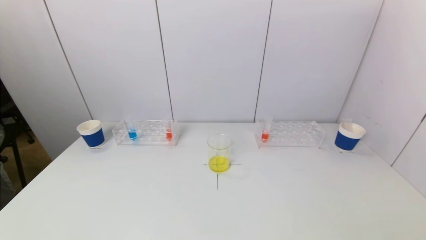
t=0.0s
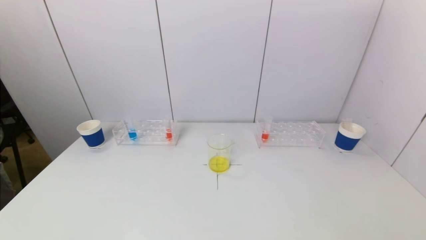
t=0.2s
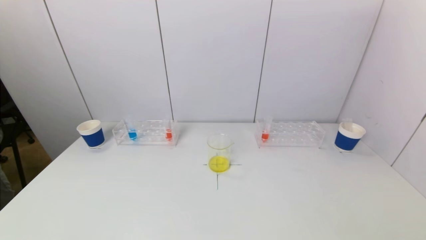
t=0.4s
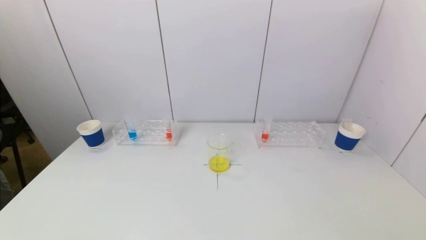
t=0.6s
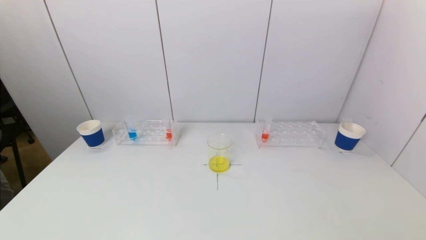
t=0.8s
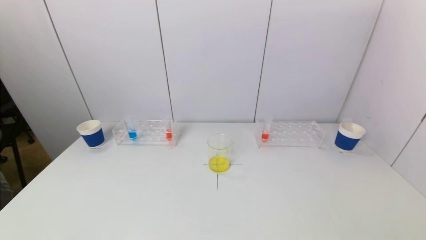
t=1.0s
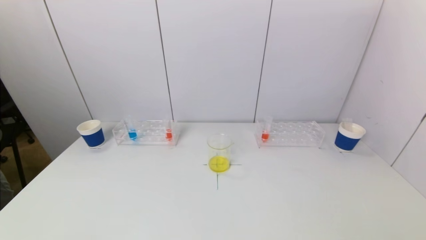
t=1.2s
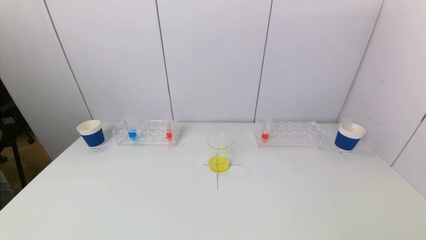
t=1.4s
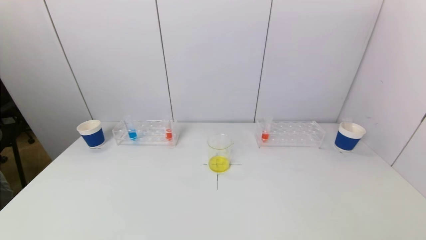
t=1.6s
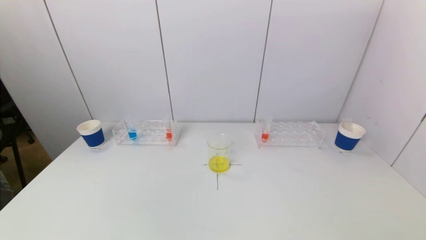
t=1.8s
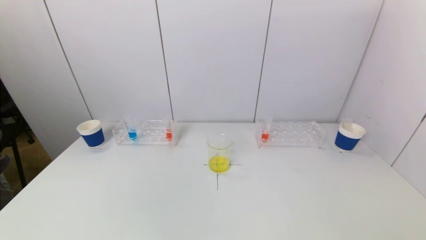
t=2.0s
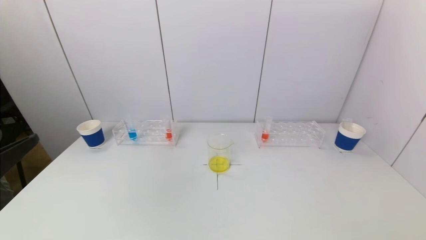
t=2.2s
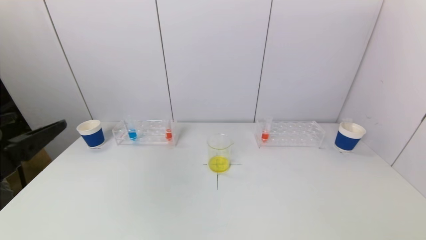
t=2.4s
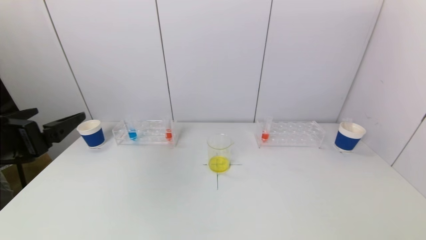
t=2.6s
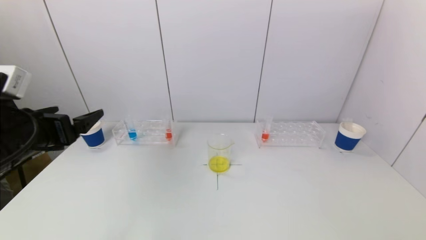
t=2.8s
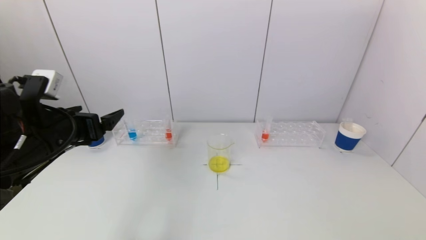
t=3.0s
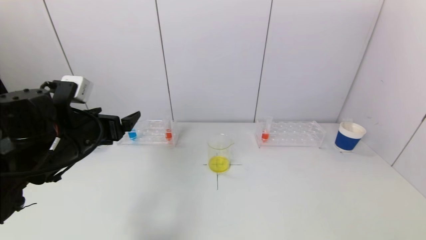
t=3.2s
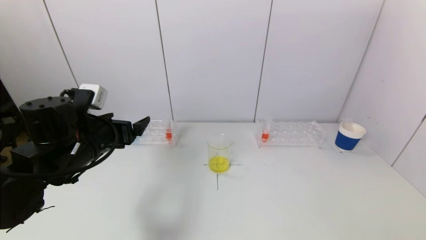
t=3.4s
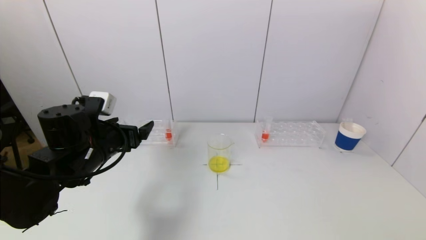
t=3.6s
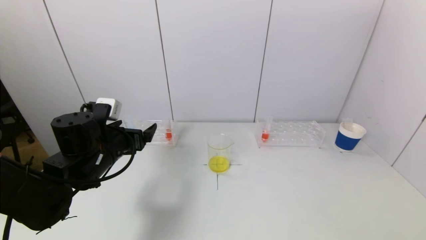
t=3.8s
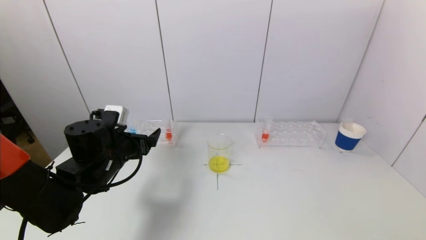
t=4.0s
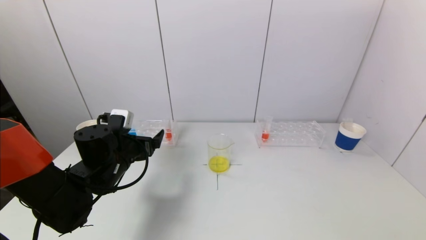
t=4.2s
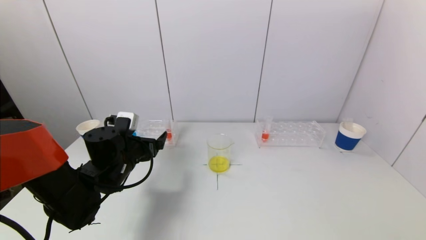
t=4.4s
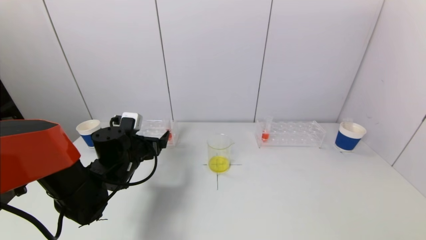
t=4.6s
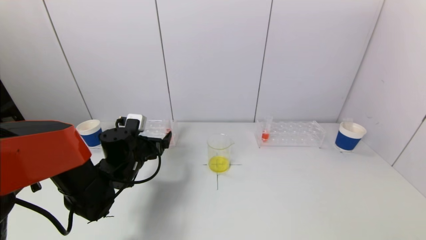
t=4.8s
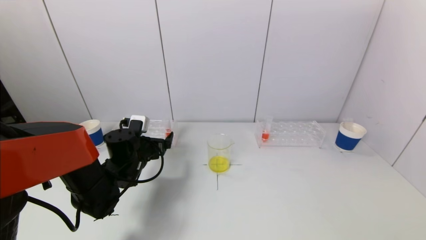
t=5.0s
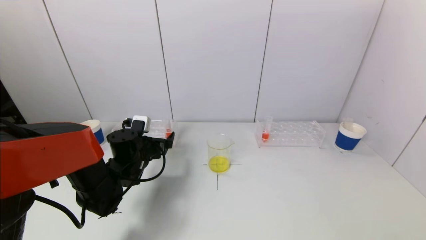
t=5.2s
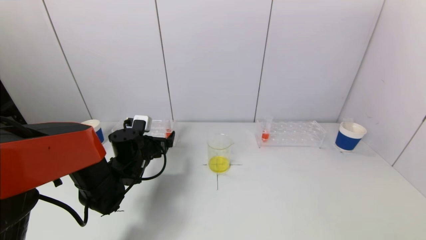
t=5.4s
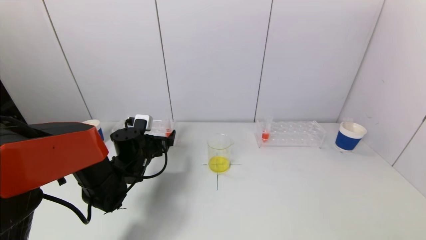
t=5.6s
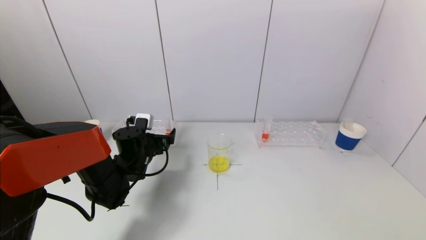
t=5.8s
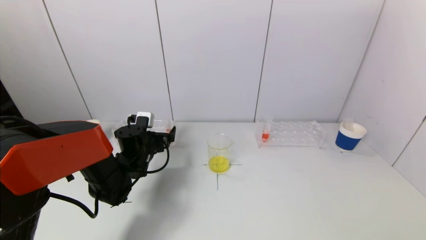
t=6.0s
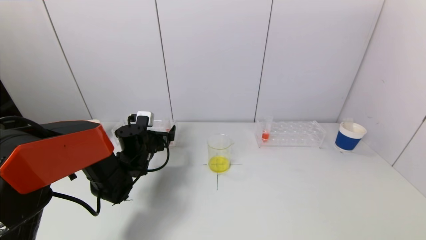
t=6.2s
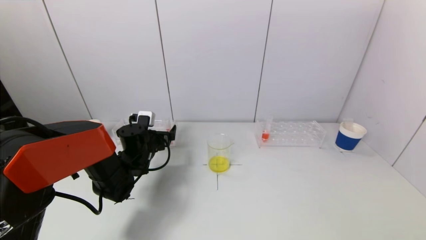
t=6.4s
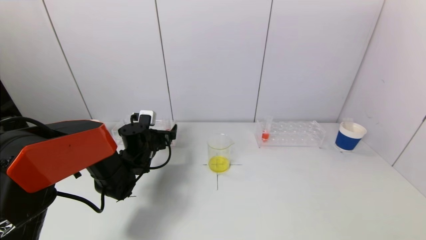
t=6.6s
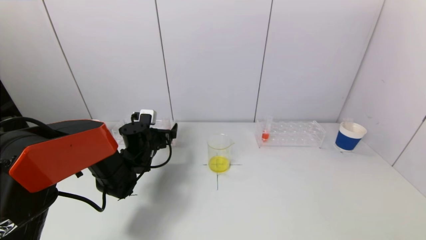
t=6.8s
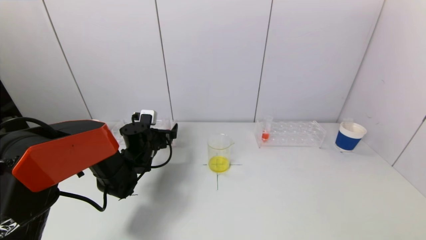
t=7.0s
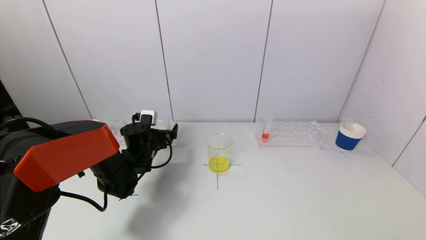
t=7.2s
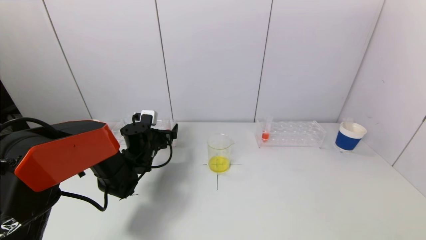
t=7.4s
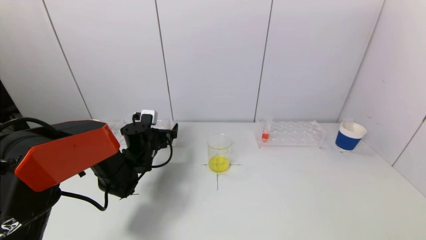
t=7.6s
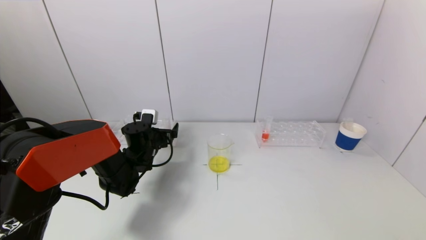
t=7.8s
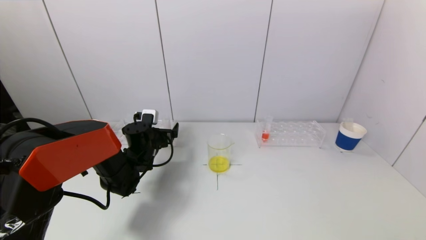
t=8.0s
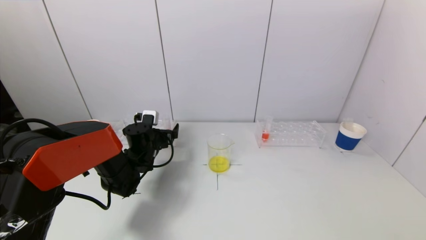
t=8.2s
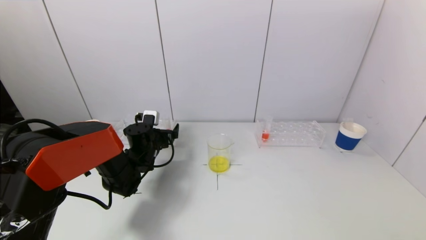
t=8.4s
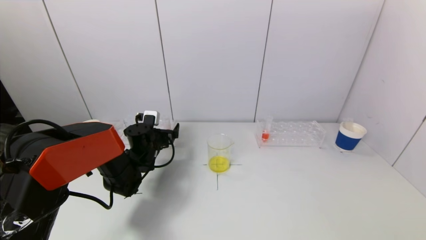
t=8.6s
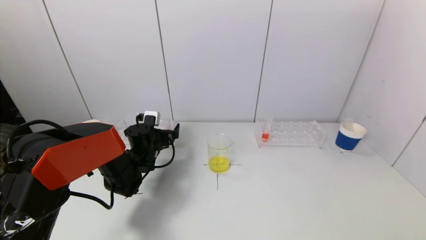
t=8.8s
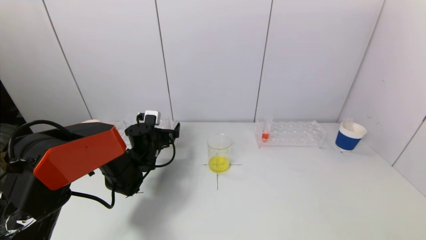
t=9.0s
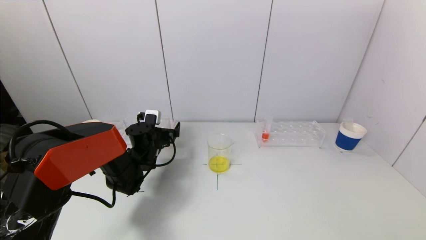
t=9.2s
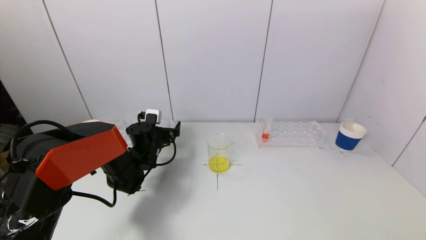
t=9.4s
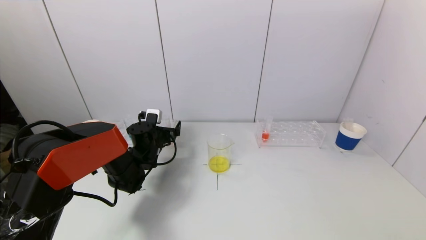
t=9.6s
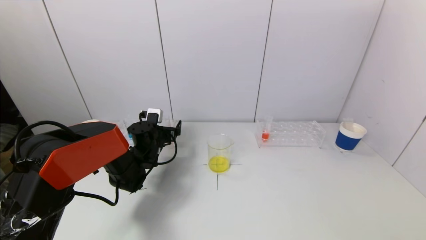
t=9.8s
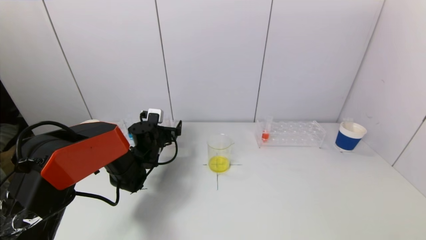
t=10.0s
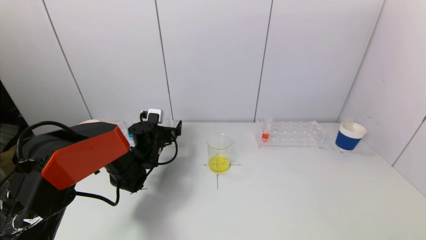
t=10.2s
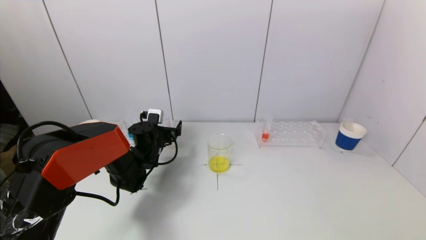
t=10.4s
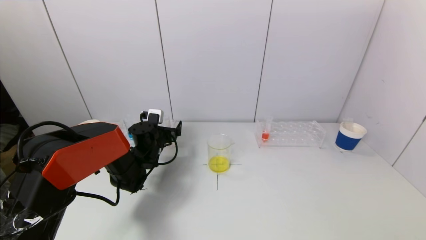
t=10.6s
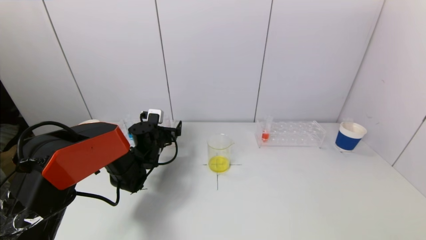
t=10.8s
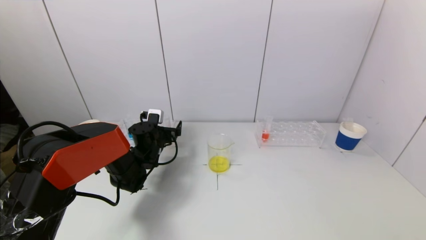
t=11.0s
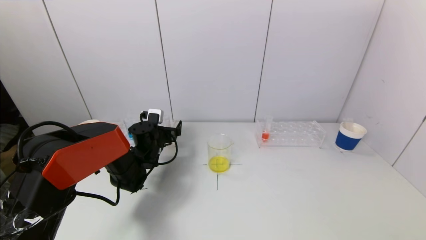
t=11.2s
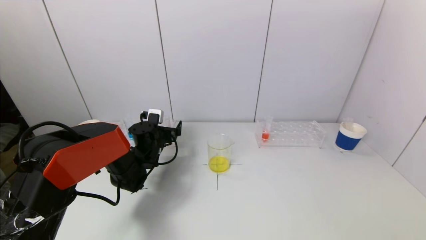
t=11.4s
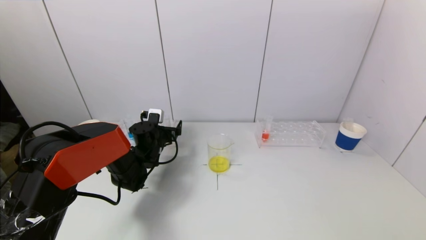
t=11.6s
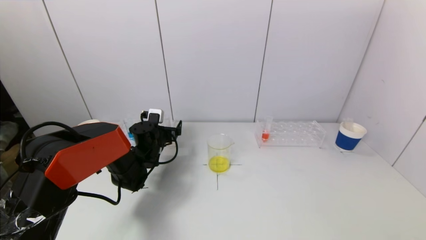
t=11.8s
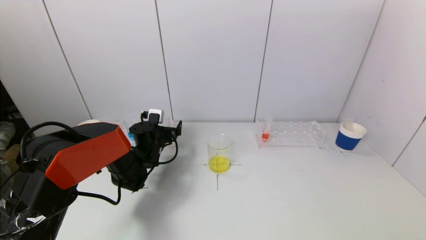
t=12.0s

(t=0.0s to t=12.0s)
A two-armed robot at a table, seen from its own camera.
Task of the whole recording: pick up a test tube with pigment on left test tube rack and a test tube with pigment on right test tube rack by grippers and pour them into the beaker.
t=1.6s - t=3.0s: The left gripper shifts roughly 25 cm forward.
t=3.0s - t=4.4s: The left gripper is displaced downward, forward and to the right by about 15 cm.
t=4.4s - t=6.0s: The left gripper heads forward, covering some 5 cm.
t=6.0s - t=9.0s: The grippers move only a little.
t=9.0s - t=10.4s: Neither gripper changes place.
t=10.4s - t=12.0s: The two grippers keep their place.

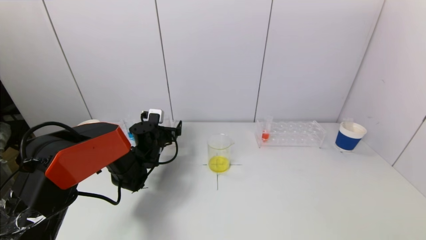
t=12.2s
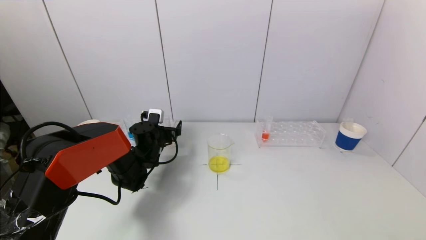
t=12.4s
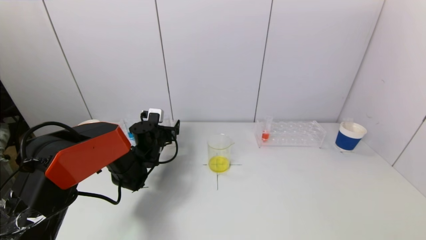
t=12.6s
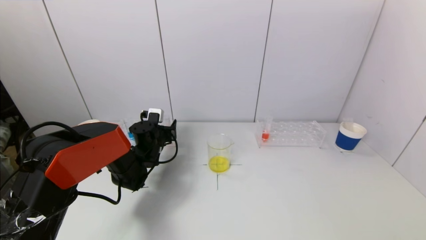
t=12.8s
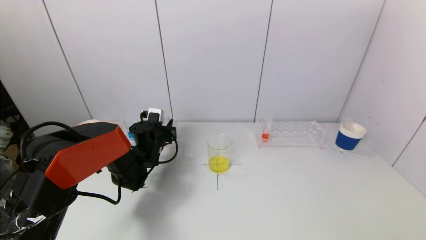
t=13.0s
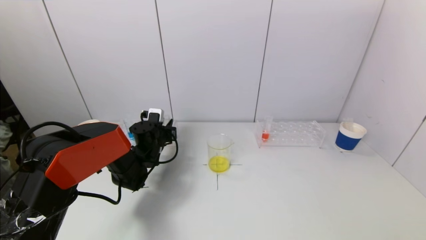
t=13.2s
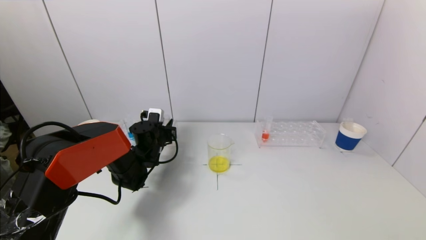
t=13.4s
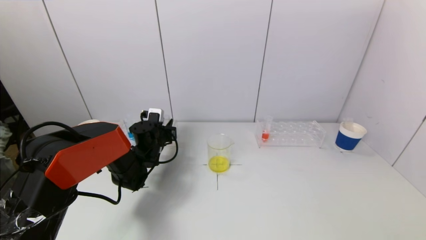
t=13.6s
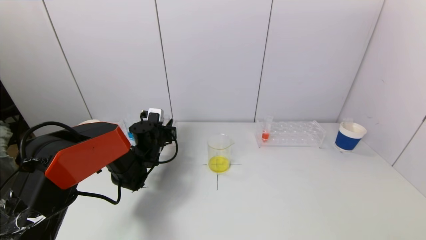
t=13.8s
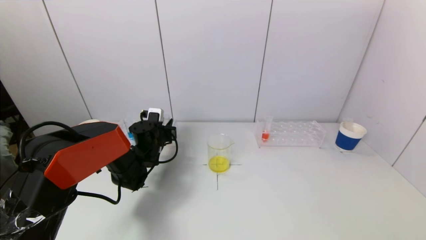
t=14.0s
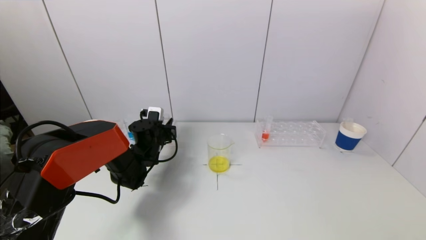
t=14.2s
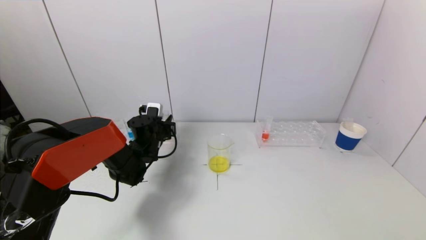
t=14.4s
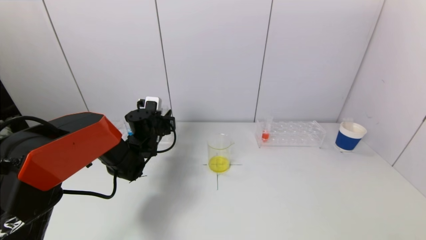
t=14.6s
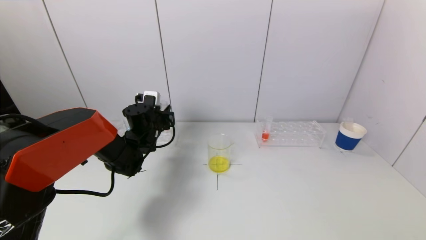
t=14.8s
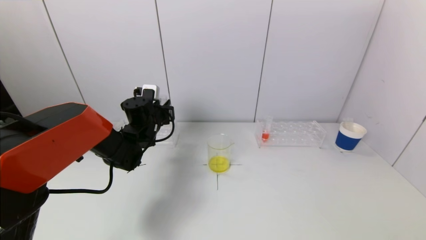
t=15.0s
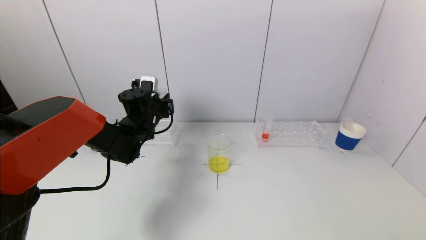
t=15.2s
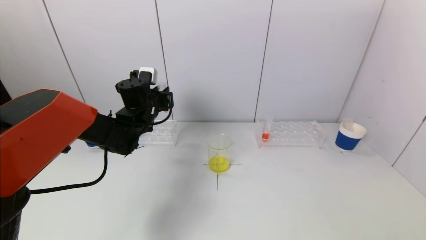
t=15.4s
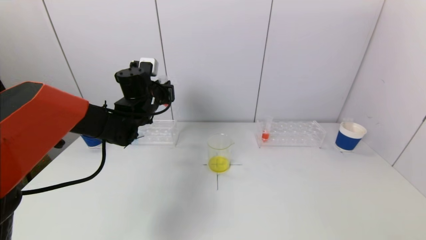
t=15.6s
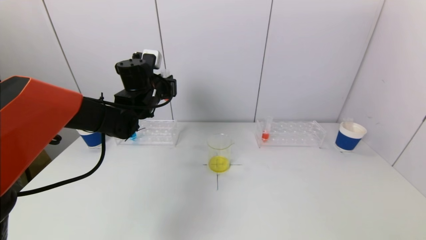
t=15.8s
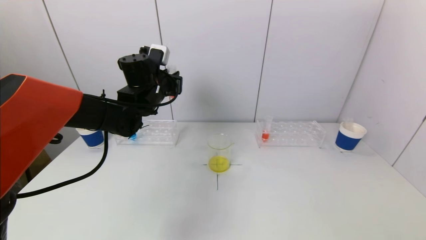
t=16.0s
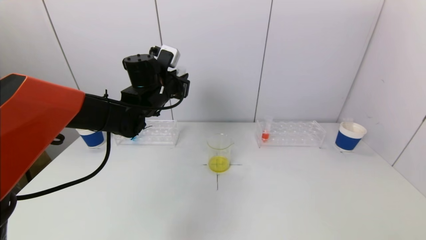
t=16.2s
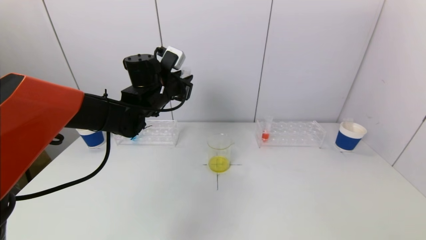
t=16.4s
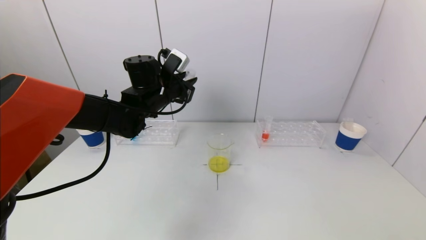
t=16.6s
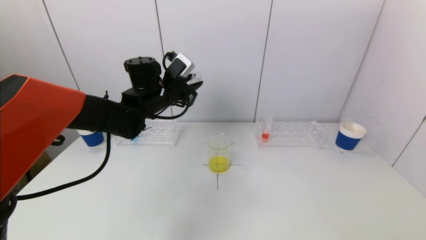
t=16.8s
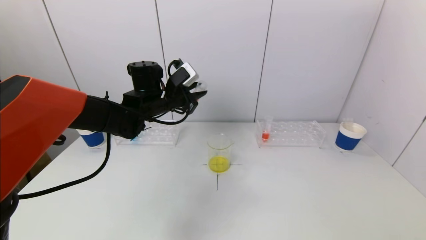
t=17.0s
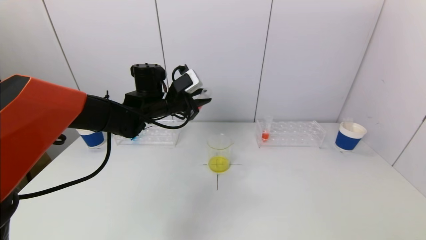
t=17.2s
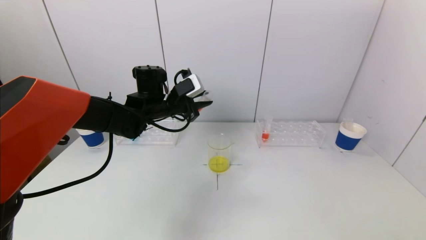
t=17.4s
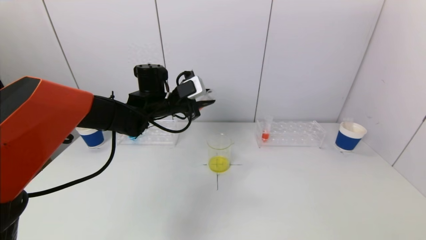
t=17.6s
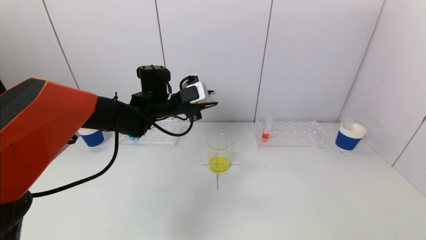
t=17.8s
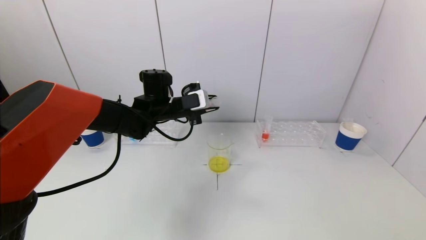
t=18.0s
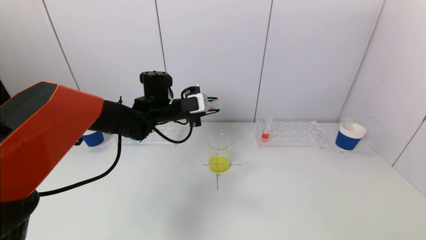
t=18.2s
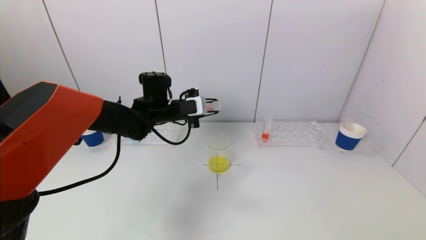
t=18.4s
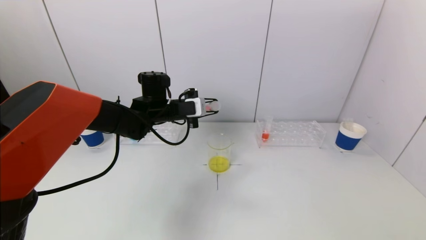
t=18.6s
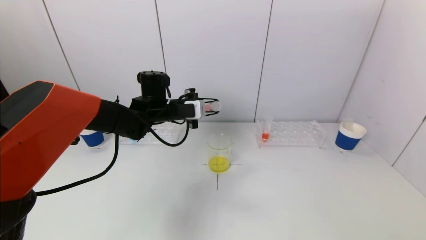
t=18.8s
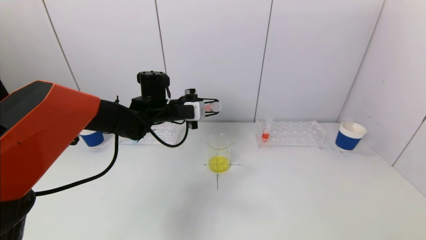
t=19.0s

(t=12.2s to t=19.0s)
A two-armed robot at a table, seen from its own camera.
Task of the whole recording: pick up a test tube with pigment on left test tube rack and a test tube with pigment on right test tube rack by grippers and pour them into the beaker.
t=12.2s - t=13.6s: The left gripper closes up.
t=13.6s - t=15.0s: The left gripper shifts about 10 cm upward.
t=15.0s - t=16.2s: The left gripper moves upward, some 10 cm.
